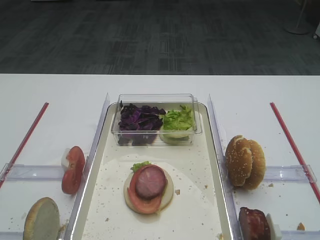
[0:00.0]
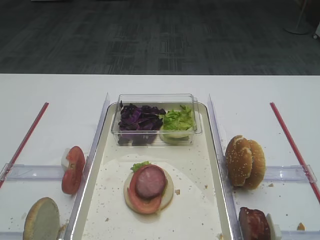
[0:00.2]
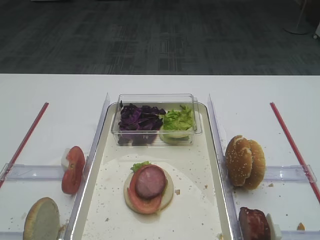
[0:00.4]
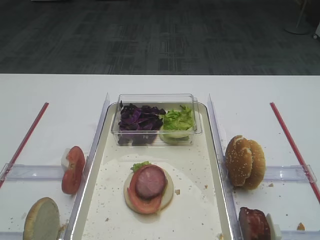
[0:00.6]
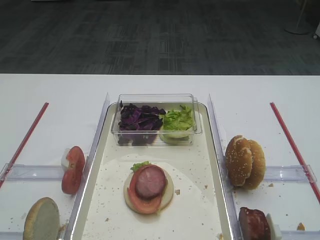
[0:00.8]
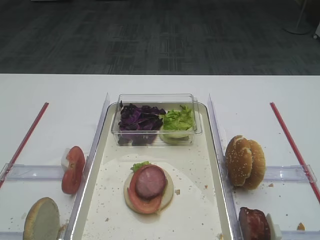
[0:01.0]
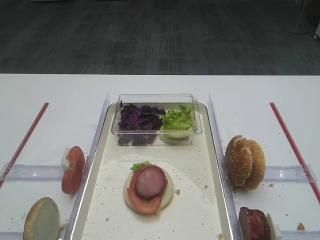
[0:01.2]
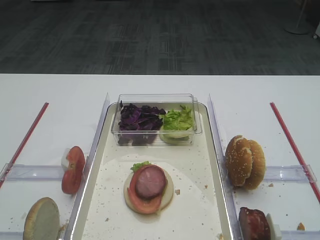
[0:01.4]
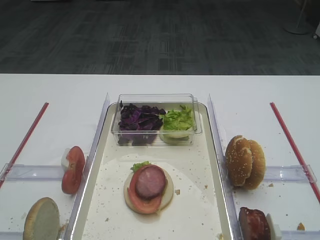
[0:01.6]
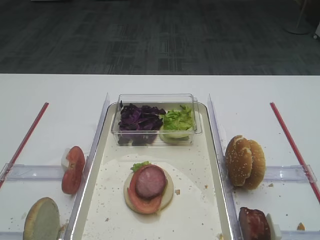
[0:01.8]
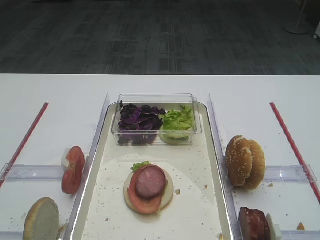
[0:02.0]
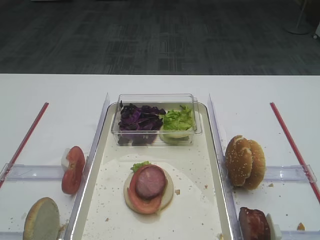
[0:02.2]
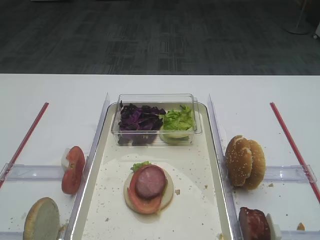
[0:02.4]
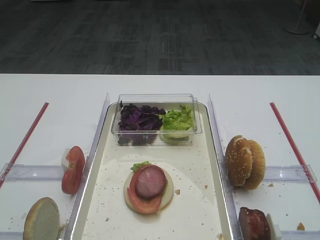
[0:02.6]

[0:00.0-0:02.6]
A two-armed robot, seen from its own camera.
0:00.0 to 0:02.6: Neither gripper changes place.
